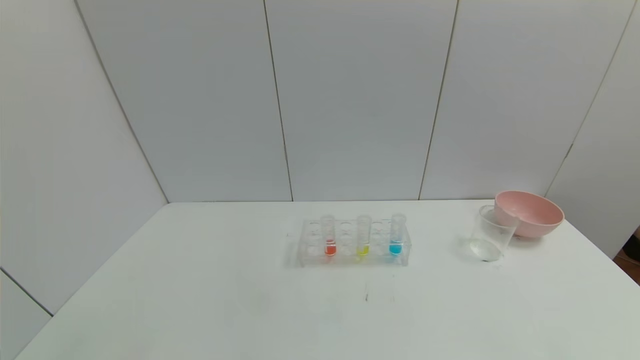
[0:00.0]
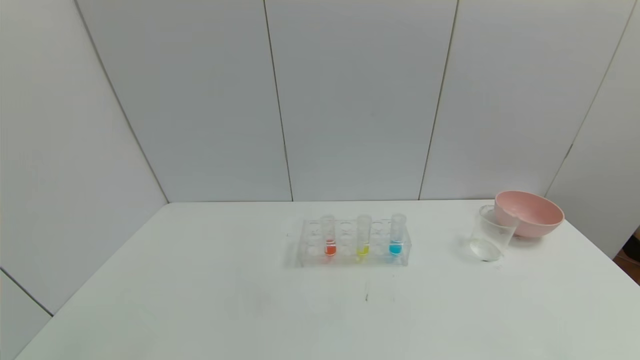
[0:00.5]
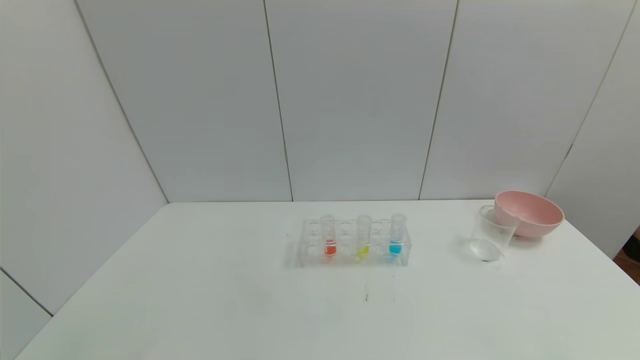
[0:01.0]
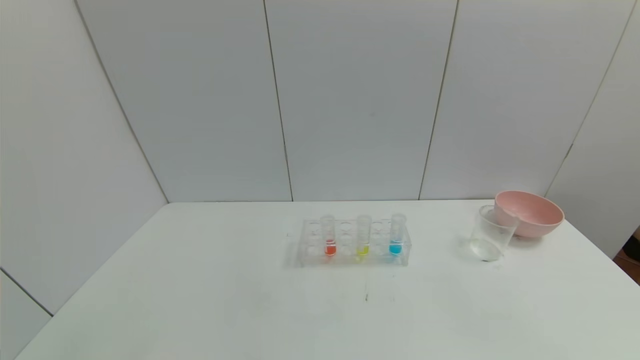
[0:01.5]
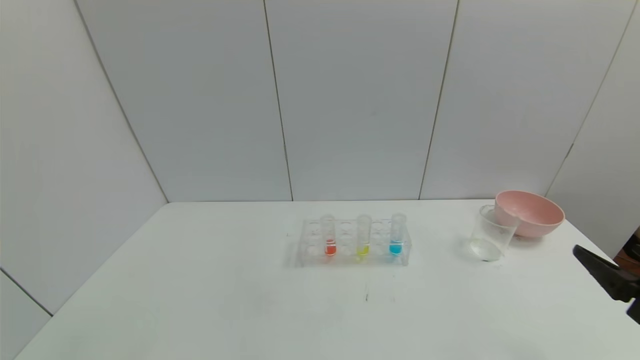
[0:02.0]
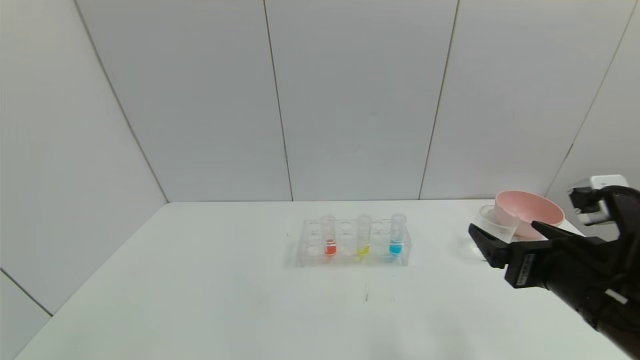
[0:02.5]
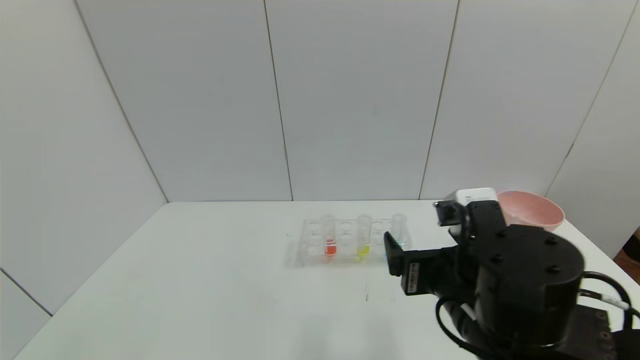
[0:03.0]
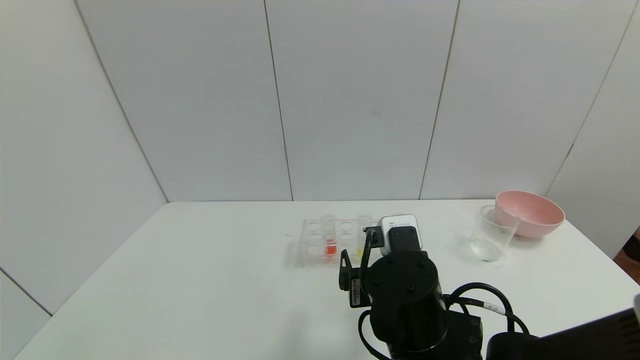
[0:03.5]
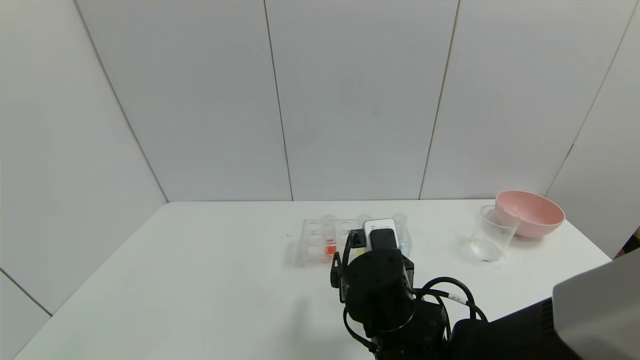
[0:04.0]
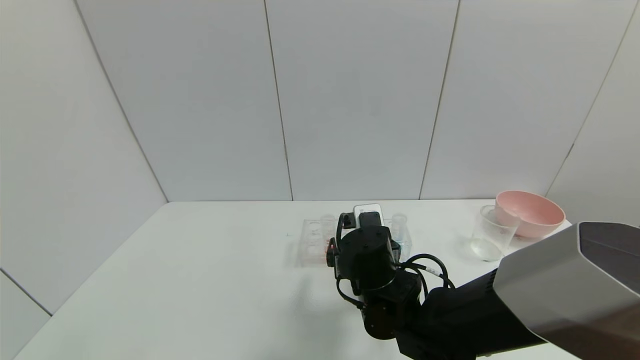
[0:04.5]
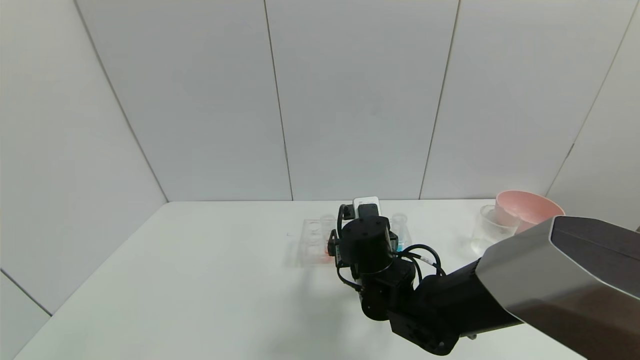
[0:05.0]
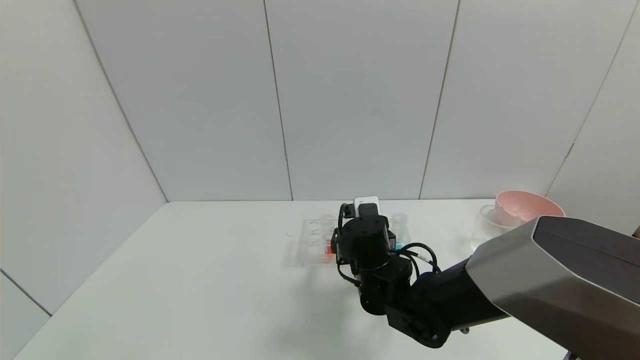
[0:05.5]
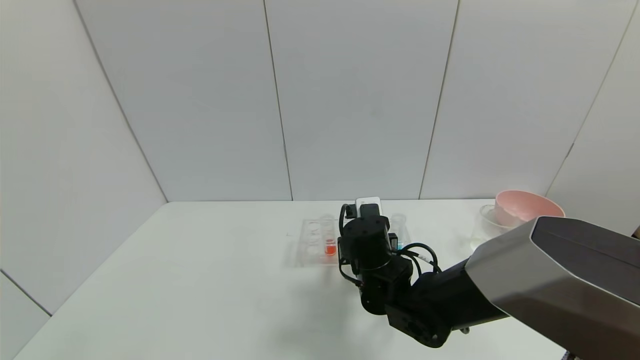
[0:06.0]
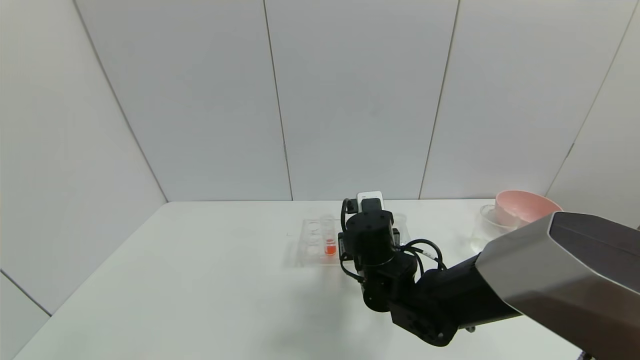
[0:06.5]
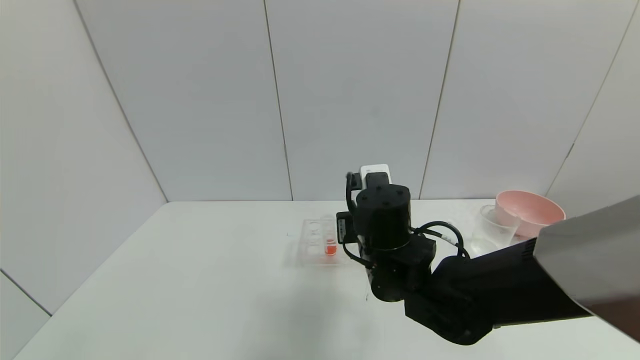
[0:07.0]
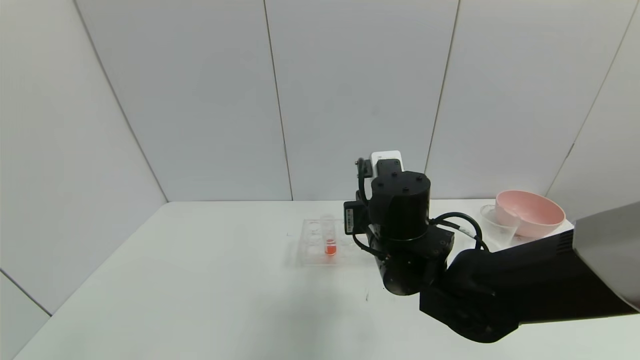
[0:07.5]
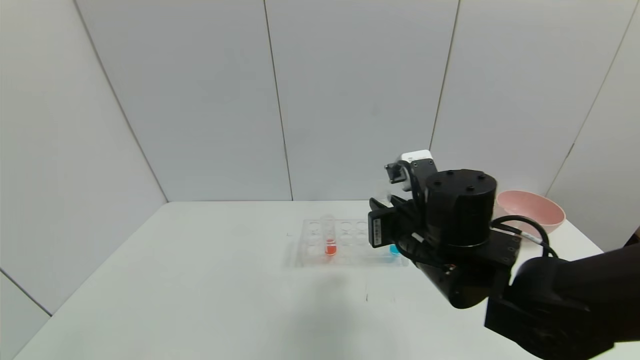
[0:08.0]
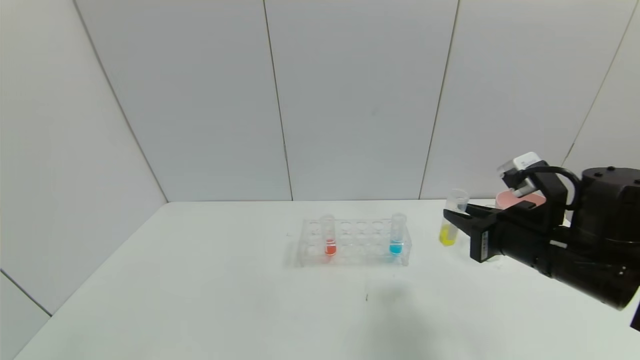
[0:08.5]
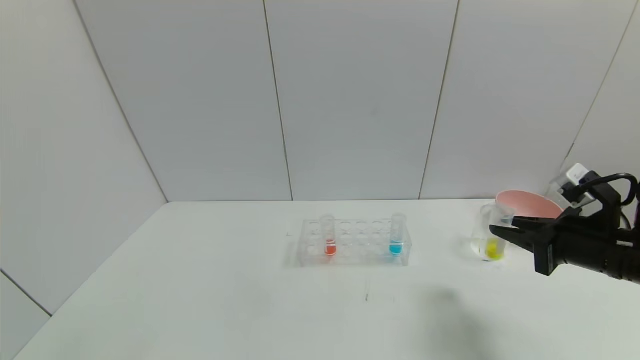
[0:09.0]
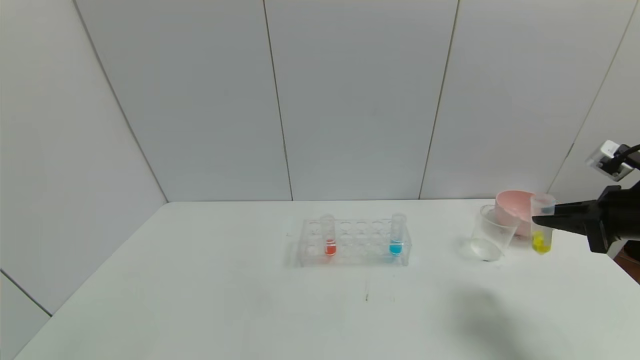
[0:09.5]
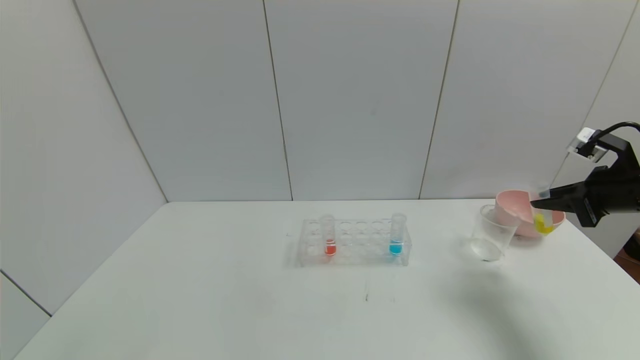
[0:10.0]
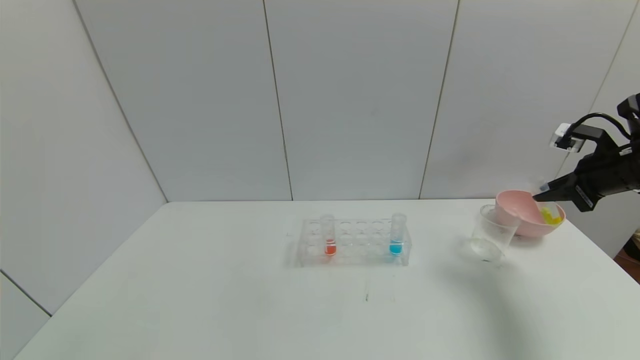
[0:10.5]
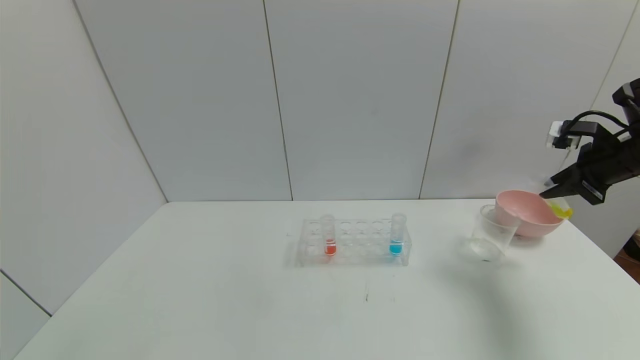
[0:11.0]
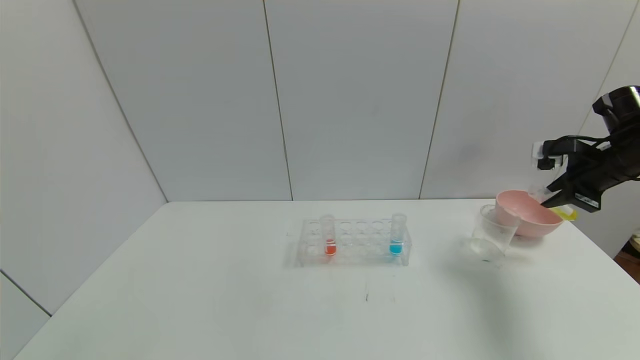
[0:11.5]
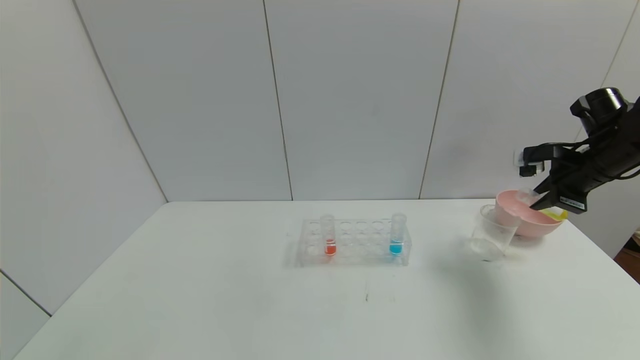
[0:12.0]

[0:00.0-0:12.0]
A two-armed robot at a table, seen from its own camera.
Task of the whole recording: pick up the test tube with yellow pigment and the test tube with blue pigment by grippers and pour them into the beaker.
Step, 0:00.0 to 0:06.0: Grasp the yellow reagent with the right gripper.
0:00.0 to 0:02.0: The right gripper is displaced forward and upward by about 20 cm.
0:02.0 to 0:04.0: The right gripper moves to the left, approximately 30 cm.
0:04.0 to 0:06.0: The right gripper goes some 10 cm forward, and closes.
0:06.0 to 0:08.0: The right gripper travels upward, to the right and backward by approximately 15 cm.
0:08.0 to 0:10.0: The right gripper shifts about 30 cm to the right.
0:10.0 to 0:12.0: The right gripper shifts some 5 cm forward.

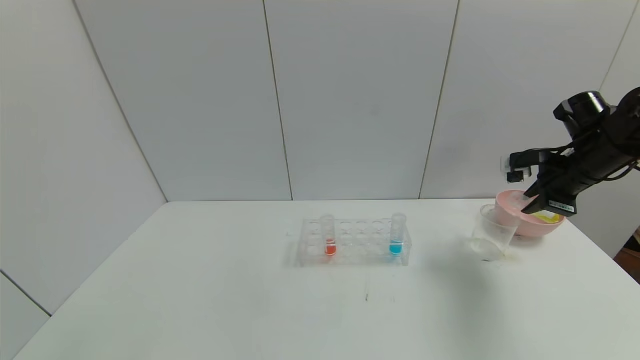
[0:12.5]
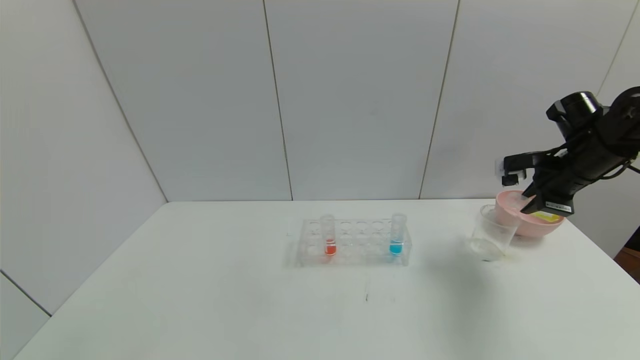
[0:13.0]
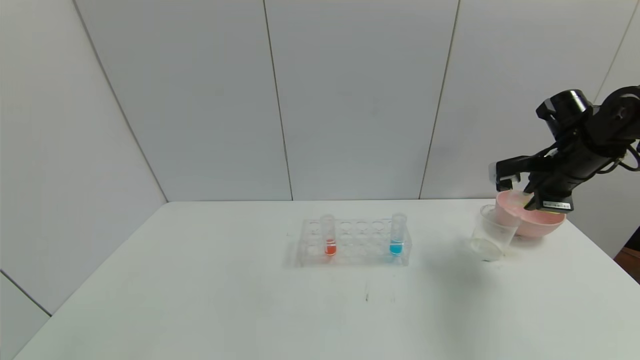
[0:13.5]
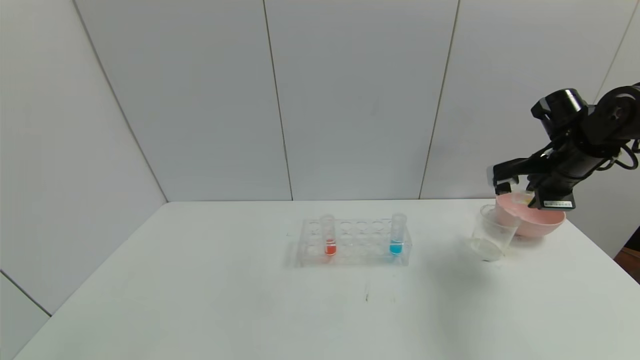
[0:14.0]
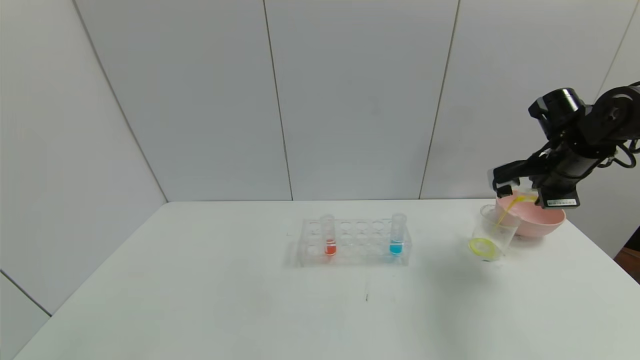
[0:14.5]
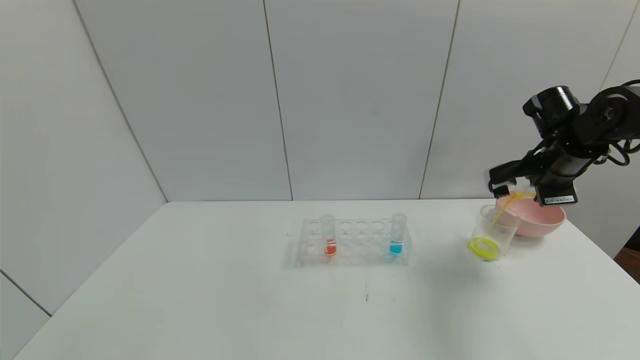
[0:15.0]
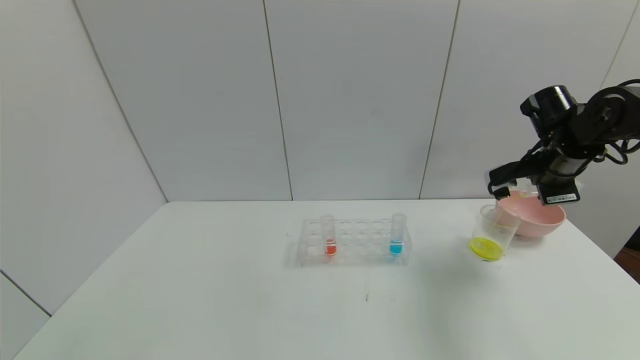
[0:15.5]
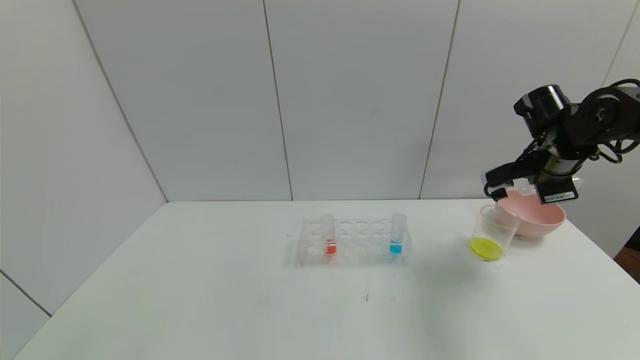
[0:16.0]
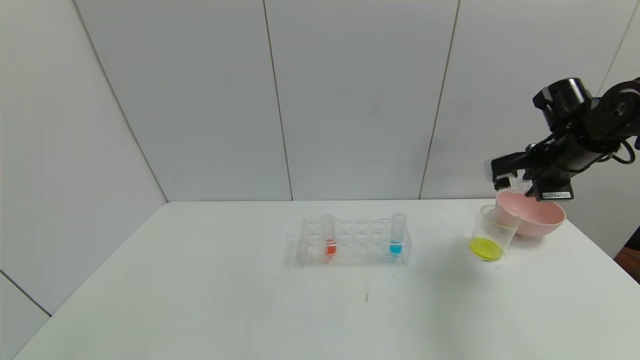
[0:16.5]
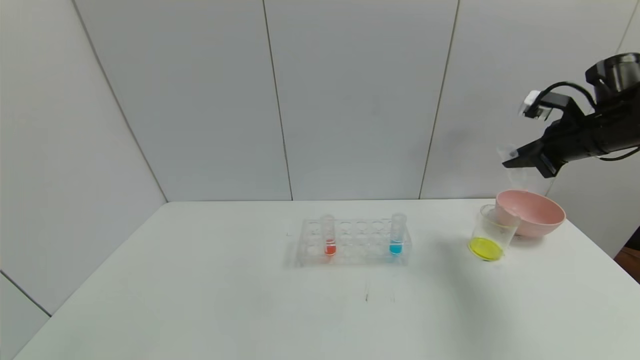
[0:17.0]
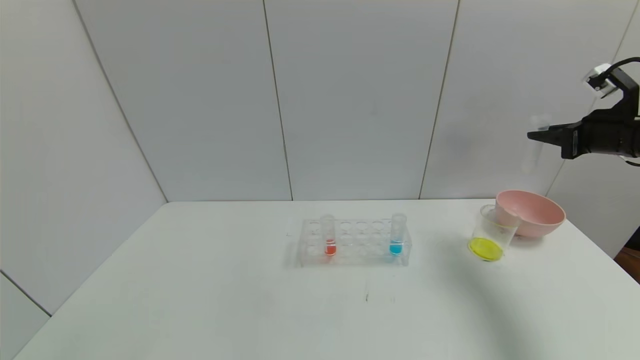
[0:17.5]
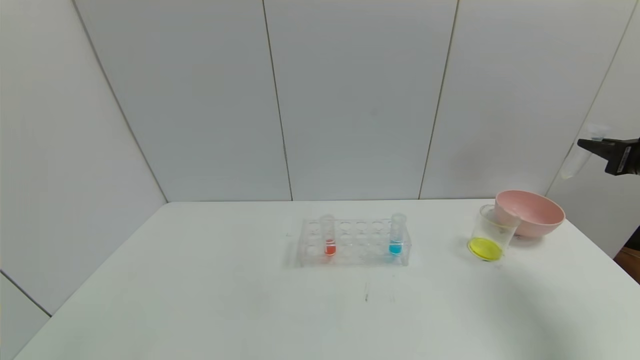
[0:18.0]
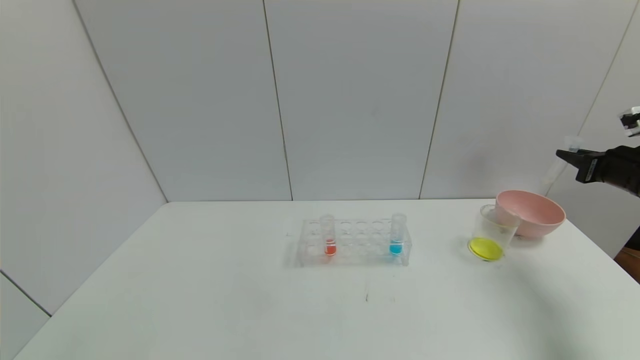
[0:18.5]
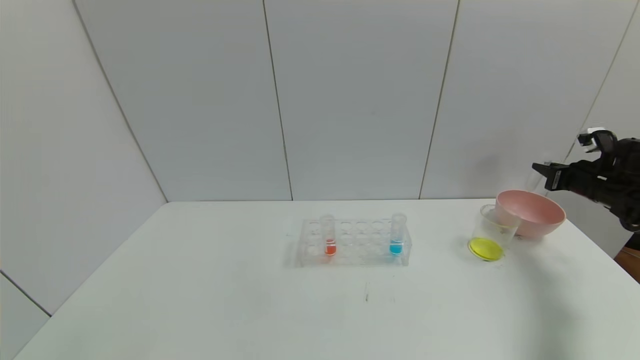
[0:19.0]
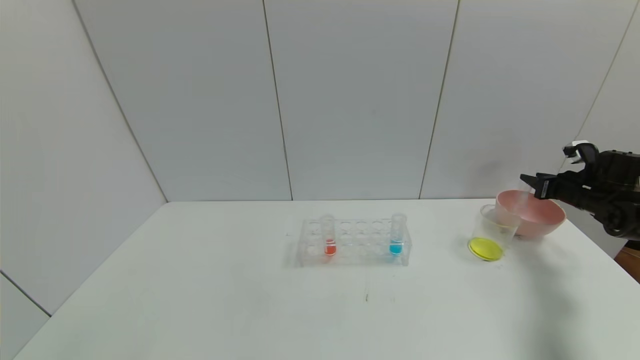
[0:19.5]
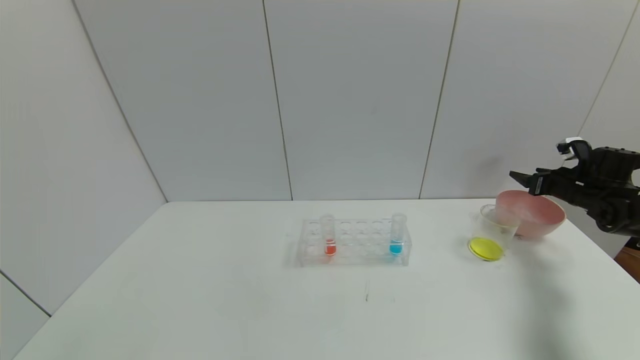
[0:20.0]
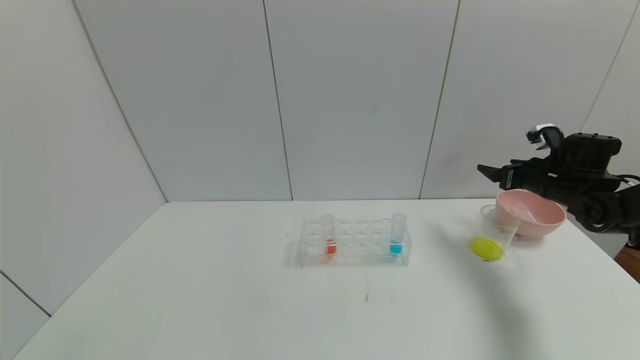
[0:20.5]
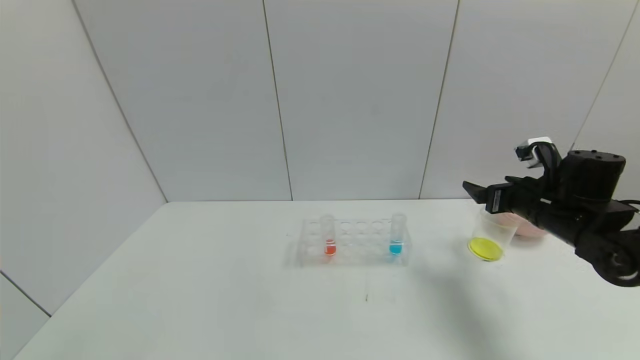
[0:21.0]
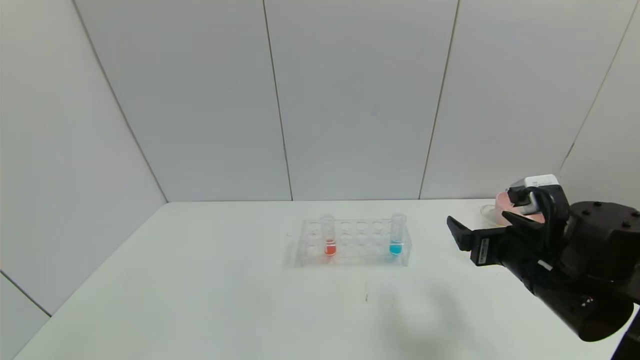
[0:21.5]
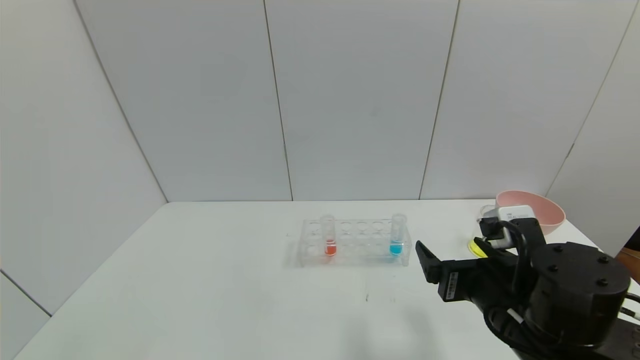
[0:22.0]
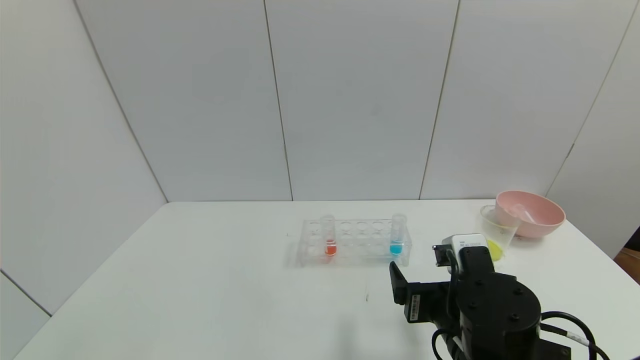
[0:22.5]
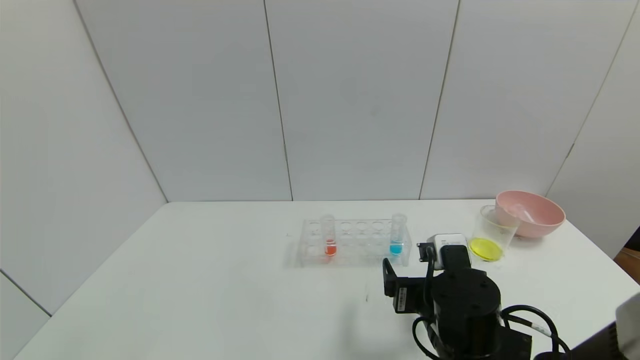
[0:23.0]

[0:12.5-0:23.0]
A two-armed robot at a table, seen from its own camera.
Task of the whole recording: pick up the test tube with yellow pigment and the test tube with blue pigment by grippers and pour them into the beaker.
Step, 0:12.5 to 0:15.5: Pour the yellow reagent into the graduated cylinder with the right gripper.
Step, 0:16.0 to 0:20.0: Place the test tube into the bowl with the right gripper.
0:14.5 to 0:16.5: The grippers make only small movements.
0:16.5 to 0:19.0: The right gripper heads to the right and downward, covering approximately 15 cm.
0:19.0 to 0:21.0: The right gripper shifts approximately 20 cm to the left and backward, and opens its fingers.
0:21.0 to 0:23.0: The right gripper is displaced to the left and backward by approximately 20 cm.
